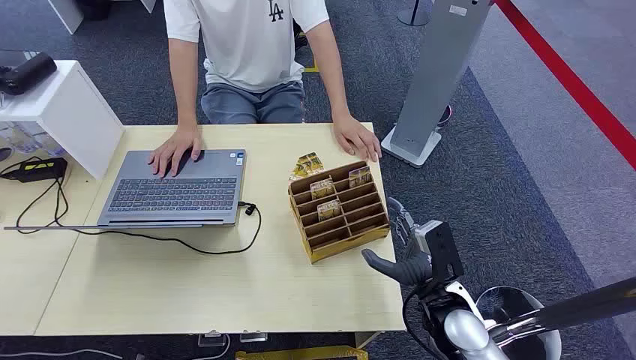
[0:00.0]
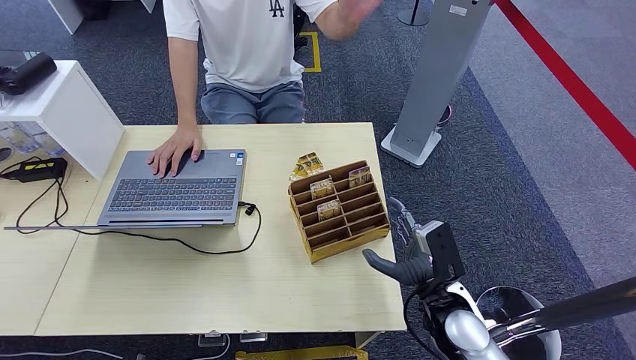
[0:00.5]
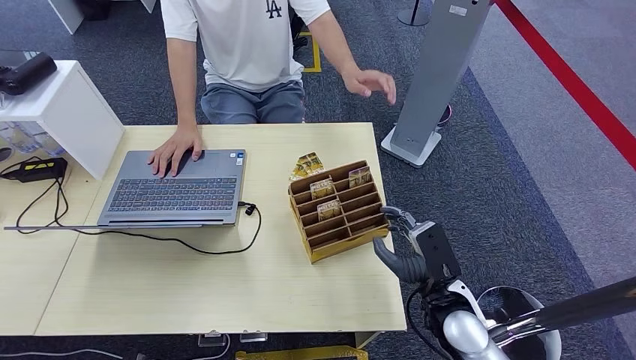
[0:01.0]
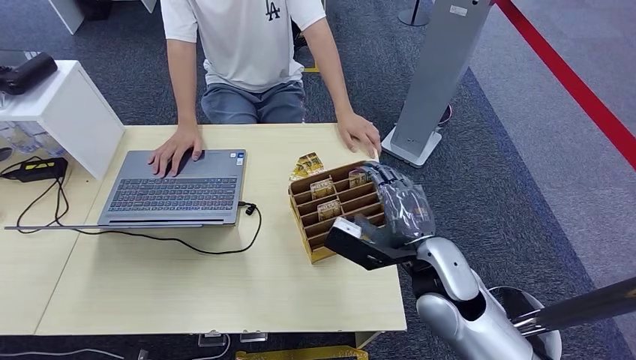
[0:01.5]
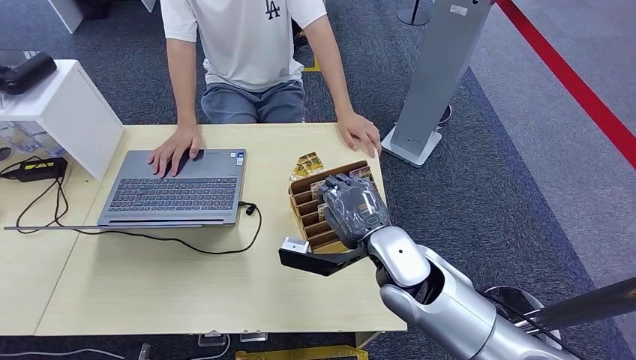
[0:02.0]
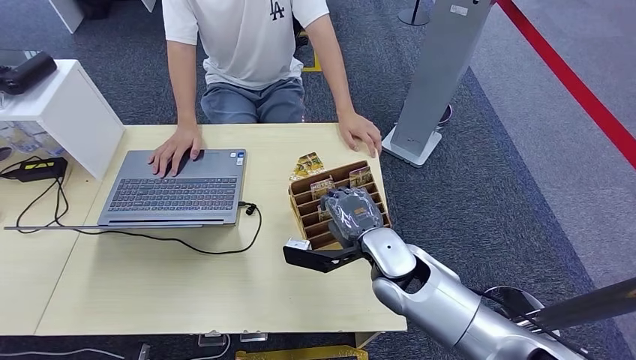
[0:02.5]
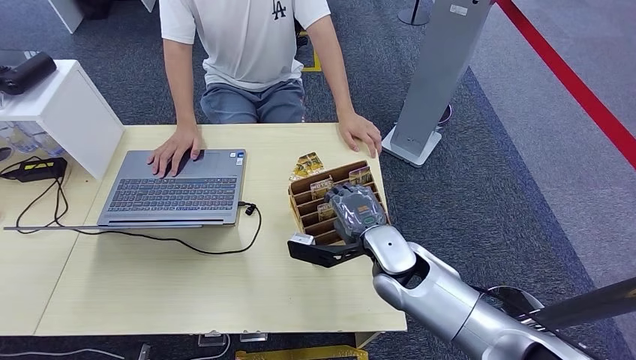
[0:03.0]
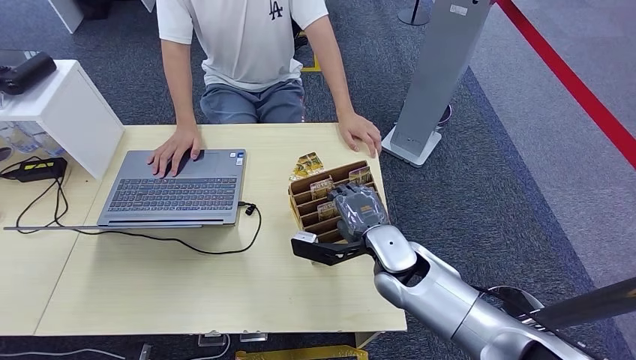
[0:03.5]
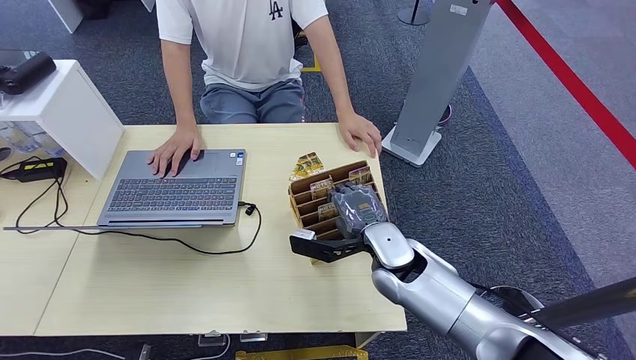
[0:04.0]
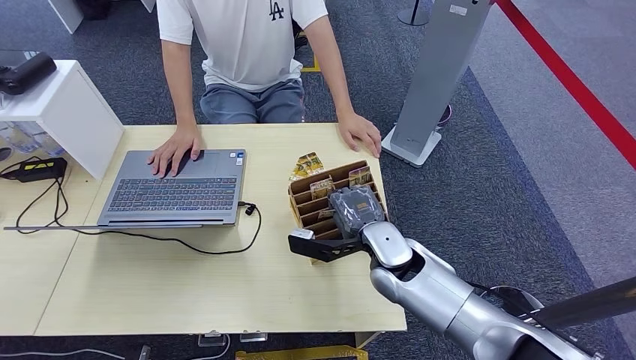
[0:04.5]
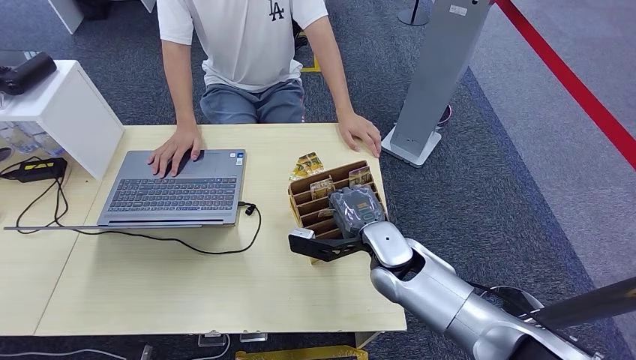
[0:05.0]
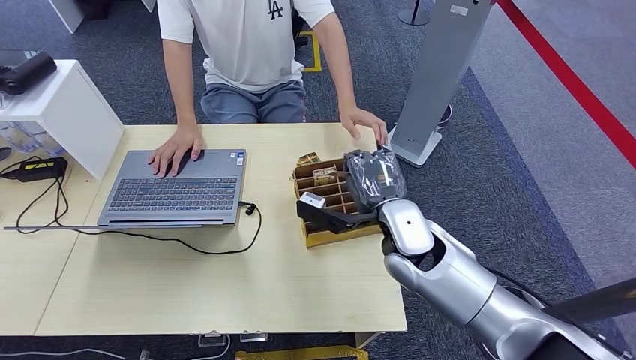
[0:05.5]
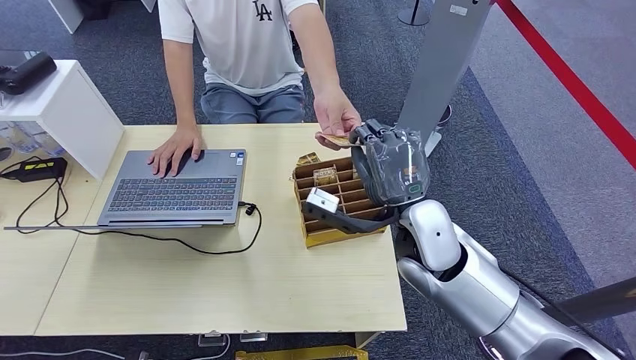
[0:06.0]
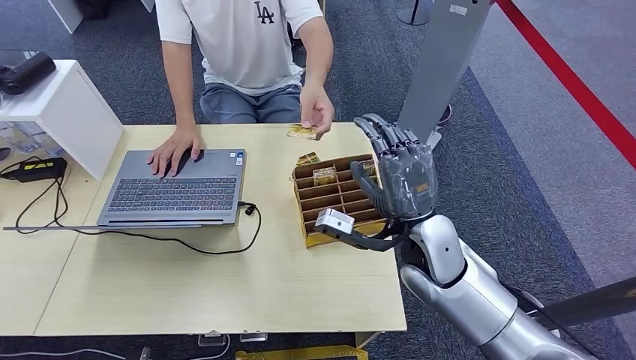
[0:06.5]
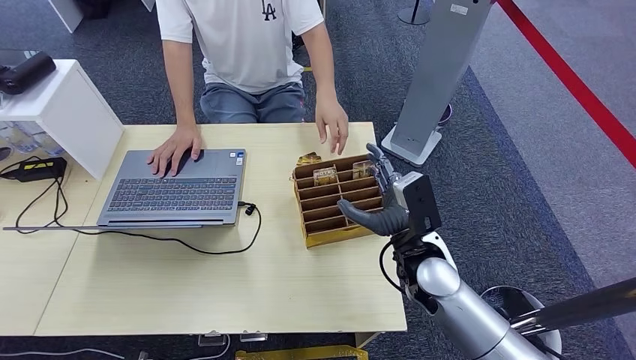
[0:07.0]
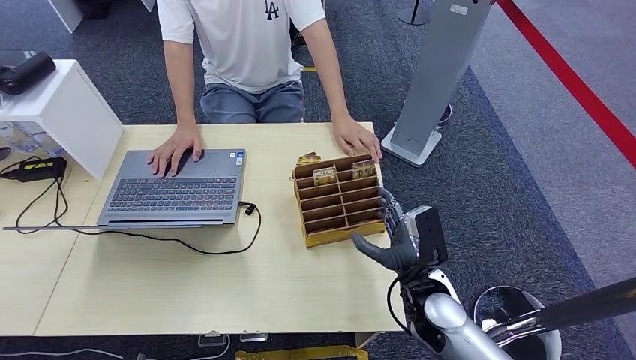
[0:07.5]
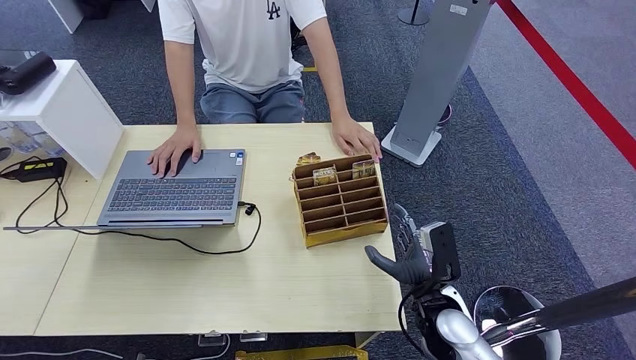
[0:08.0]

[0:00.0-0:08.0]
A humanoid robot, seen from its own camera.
Step, 0:00.0 to 0:05.5: Pick up the key card from the card box.
Step, 0:06.0 to 0:08.0: Hand the key card to the target.
0:02.0 to 0:04.0: The right hand is displaced downward by about 5 cm.
0:04.0 to 0:06.0: The right hand heads upward, covering roughly 10 cm.
0:06.0 to 0:08.0: The right hand goes some 20 cm downward, backward and to the right.

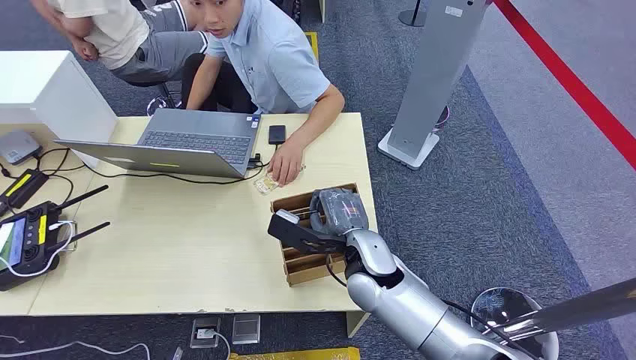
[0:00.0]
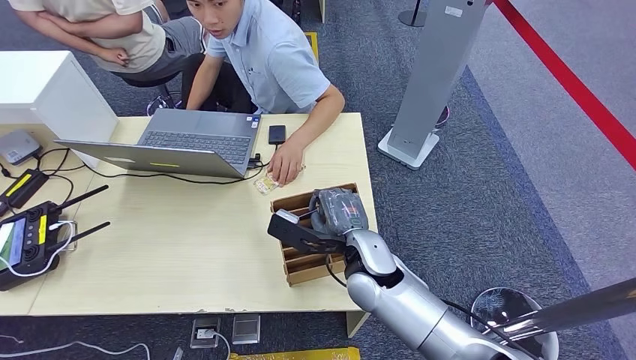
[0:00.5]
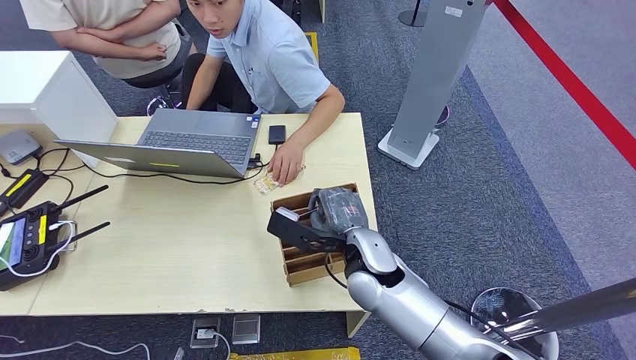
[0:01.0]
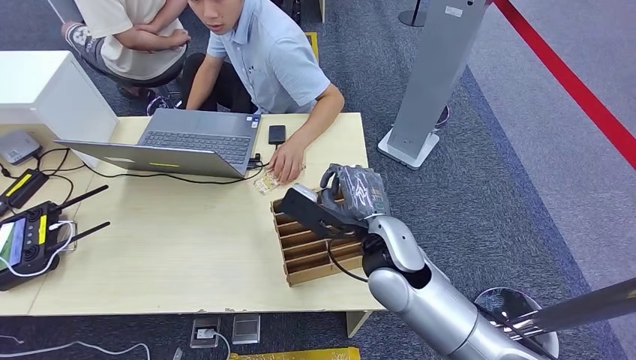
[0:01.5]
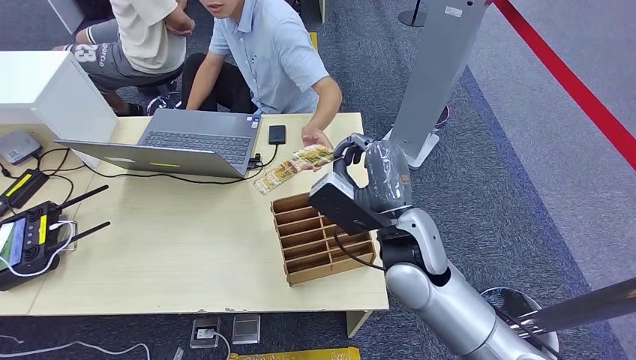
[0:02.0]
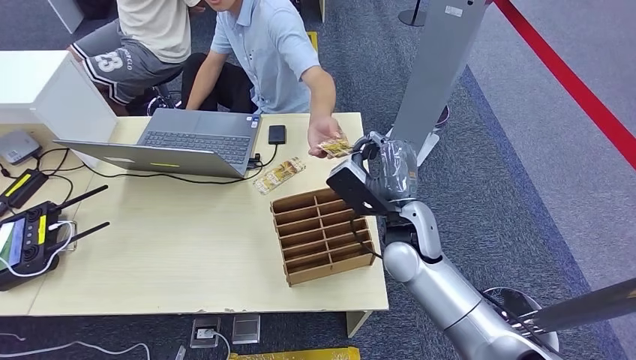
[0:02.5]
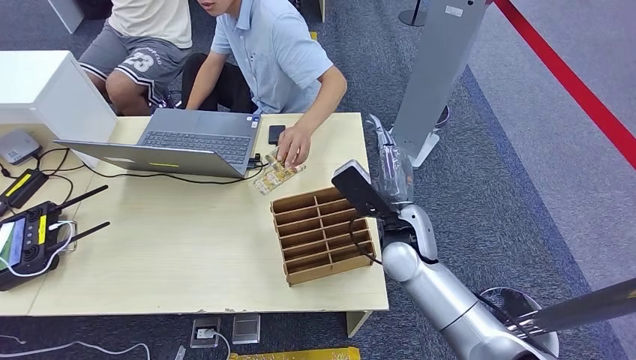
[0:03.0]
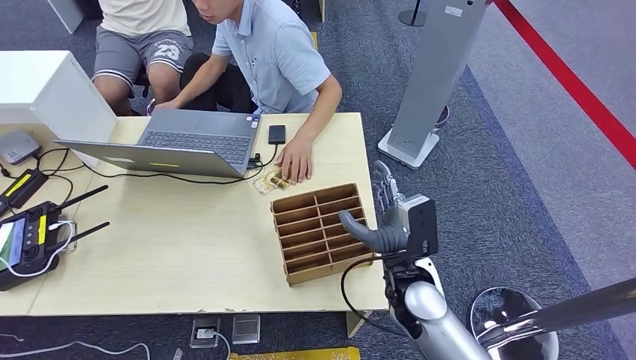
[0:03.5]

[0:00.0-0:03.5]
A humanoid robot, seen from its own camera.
Step, 0:00.0 to 0:01.5: Pick up the key card from the card box.
Step, 0:02.0 to 0:03.5: Hand the key card to the target.
0:02.0 to 0:03.5: The right hand travels downward by some 10 cm.

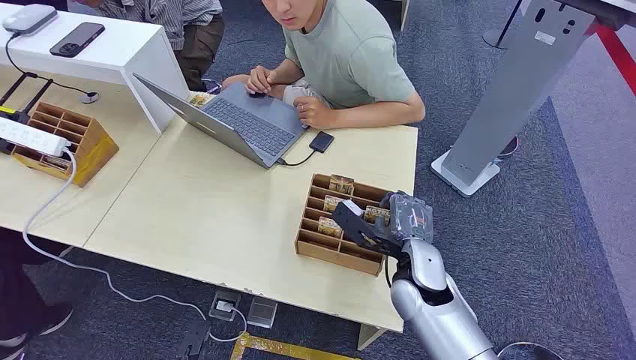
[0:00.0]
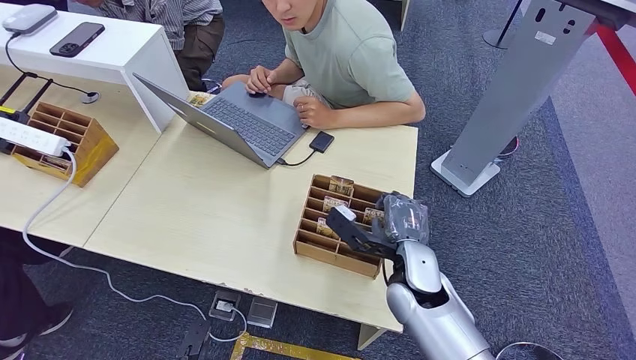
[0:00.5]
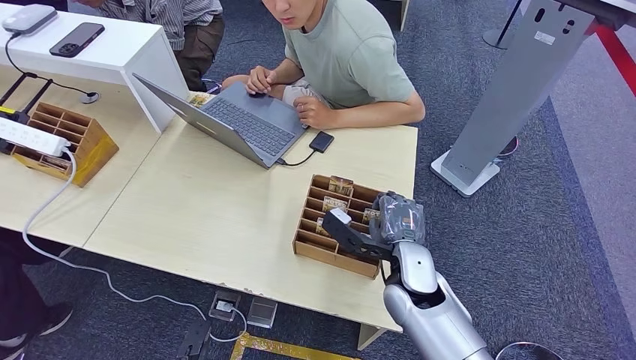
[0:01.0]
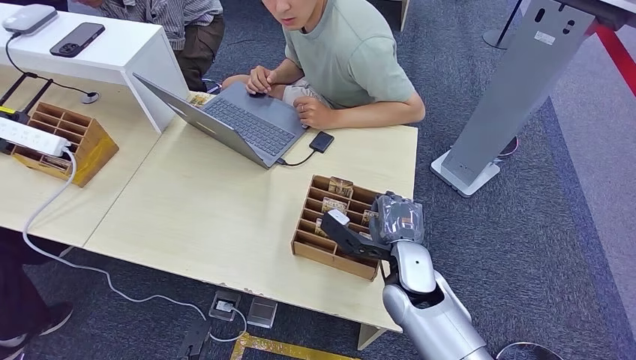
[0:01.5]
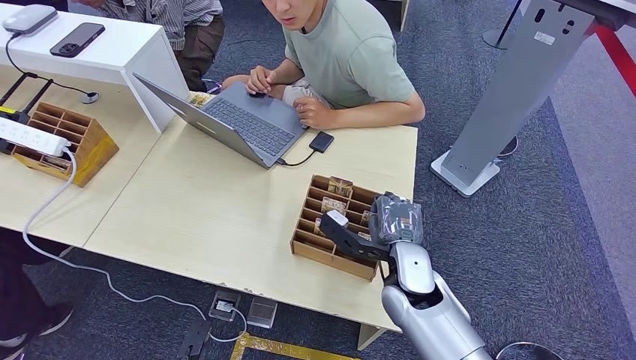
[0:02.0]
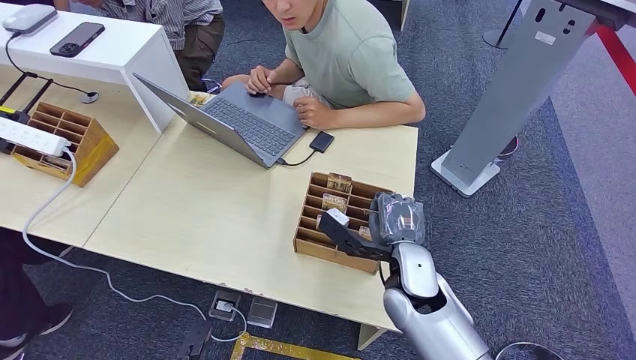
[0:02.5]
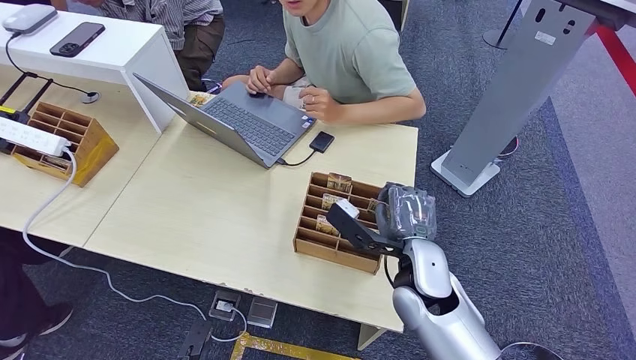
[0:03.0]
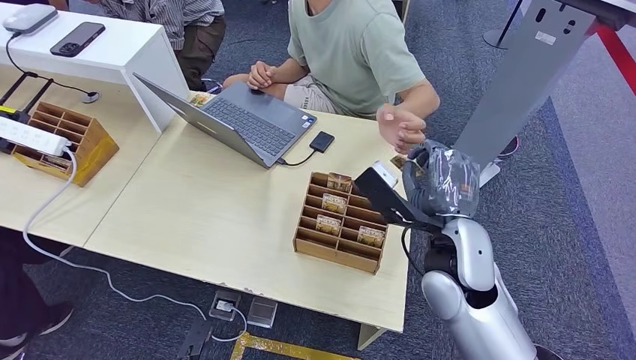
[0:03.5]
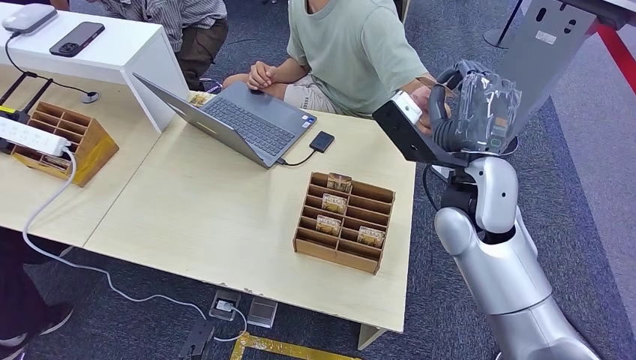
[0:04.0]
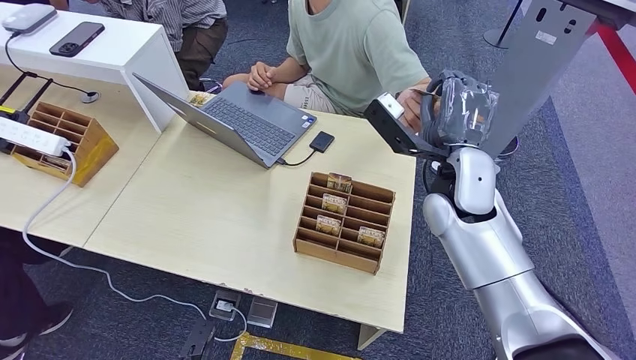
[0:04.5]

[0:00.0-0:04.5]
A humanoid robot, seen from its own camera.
Step, 0:00.0 to 0:03.0: Pick up the key card from the card box.
Step, 0:04.0 to 0:04.5: Hand the key card to the target.
